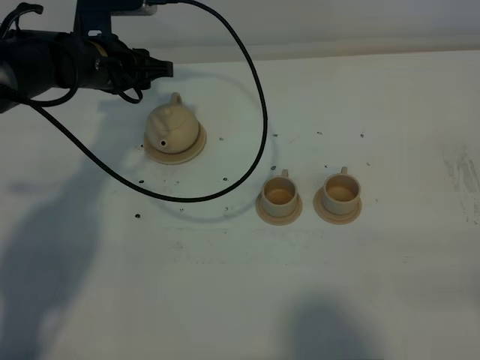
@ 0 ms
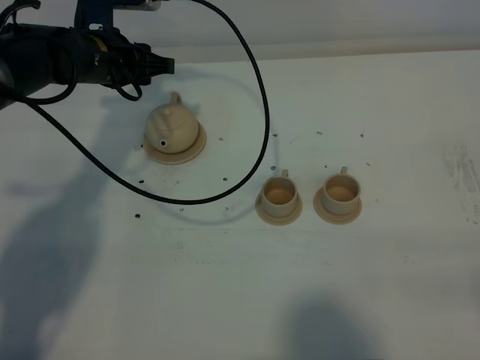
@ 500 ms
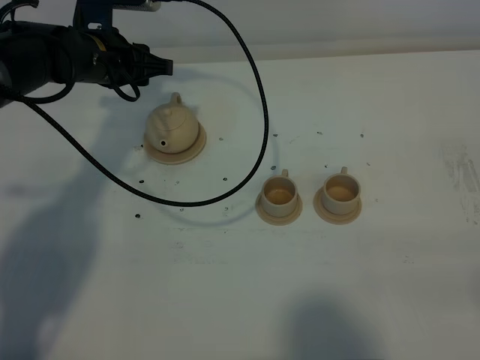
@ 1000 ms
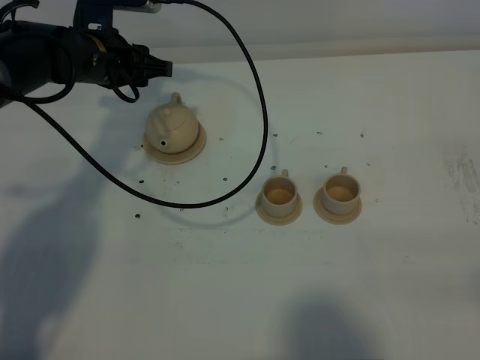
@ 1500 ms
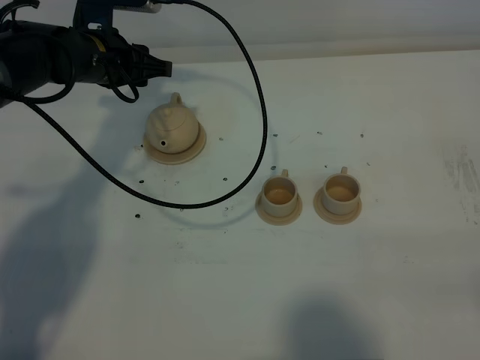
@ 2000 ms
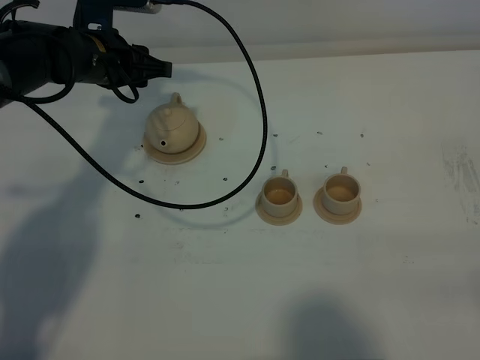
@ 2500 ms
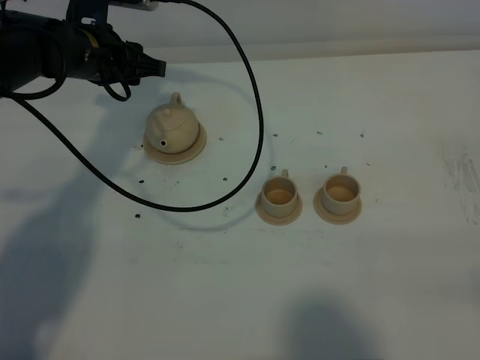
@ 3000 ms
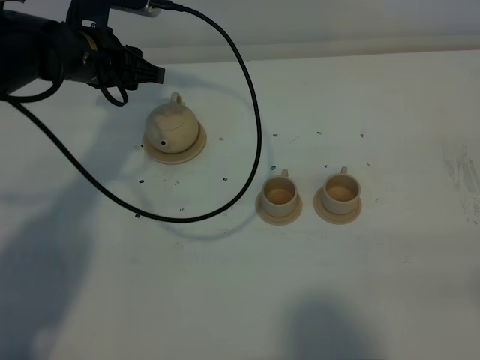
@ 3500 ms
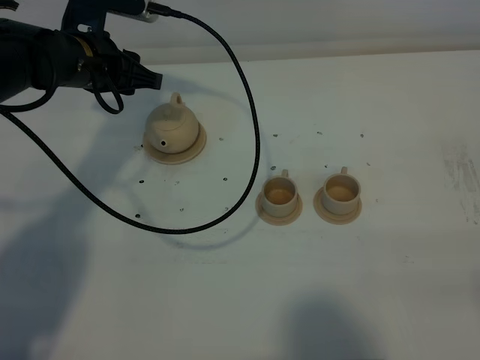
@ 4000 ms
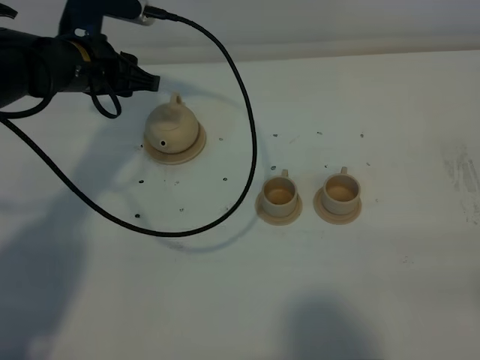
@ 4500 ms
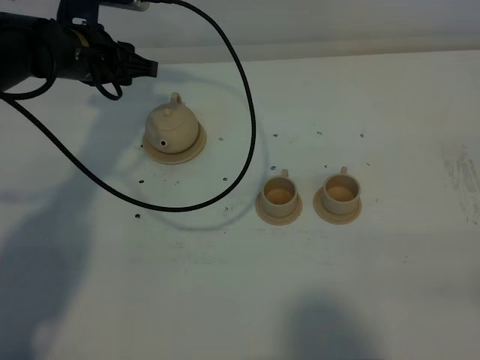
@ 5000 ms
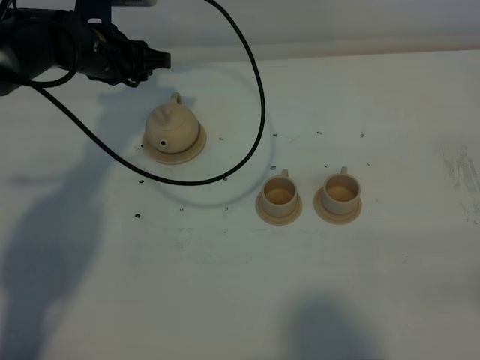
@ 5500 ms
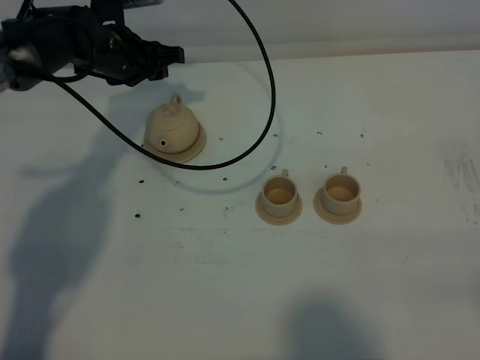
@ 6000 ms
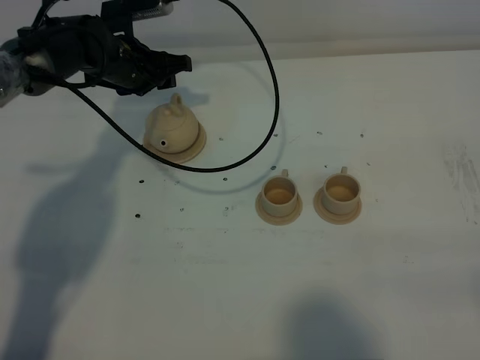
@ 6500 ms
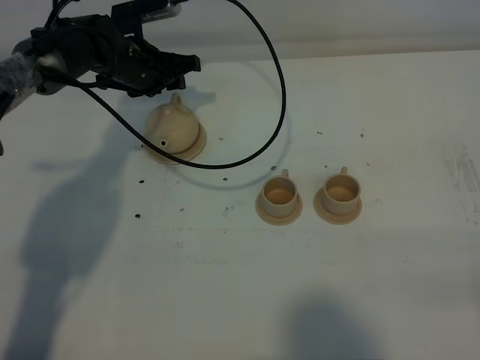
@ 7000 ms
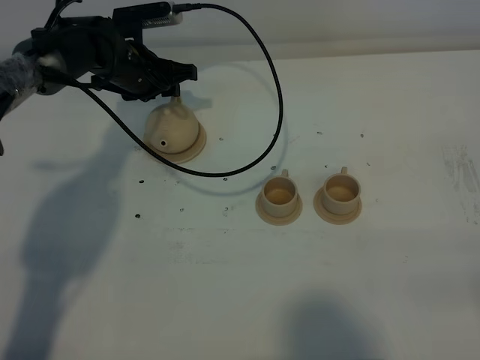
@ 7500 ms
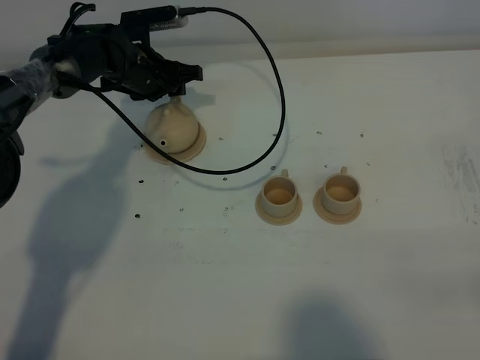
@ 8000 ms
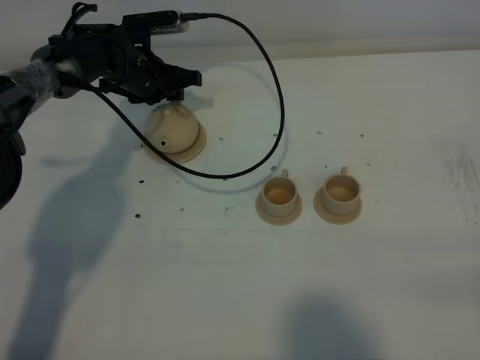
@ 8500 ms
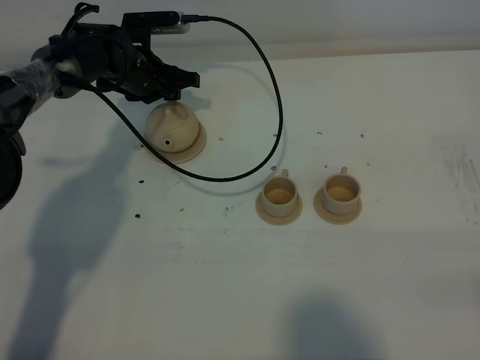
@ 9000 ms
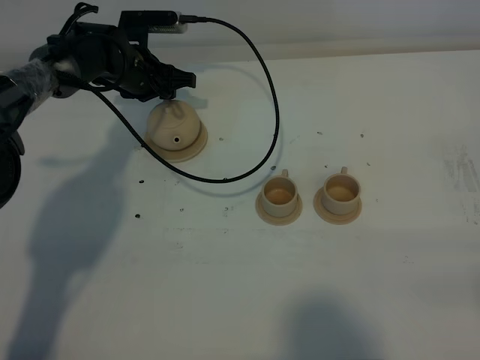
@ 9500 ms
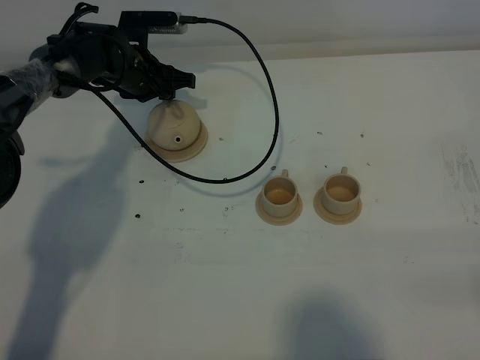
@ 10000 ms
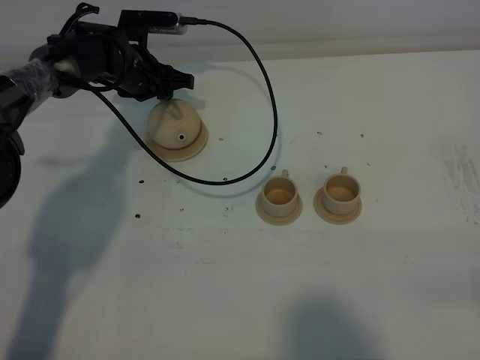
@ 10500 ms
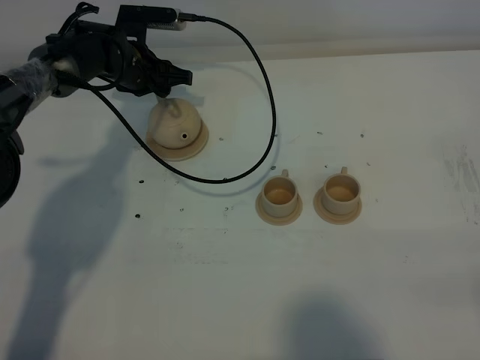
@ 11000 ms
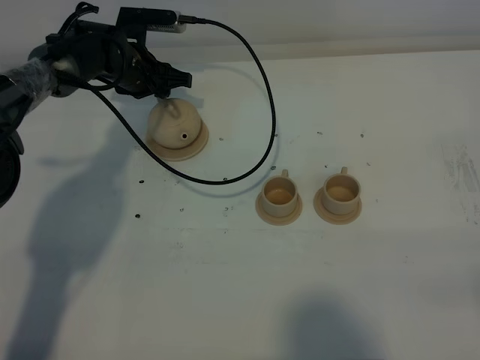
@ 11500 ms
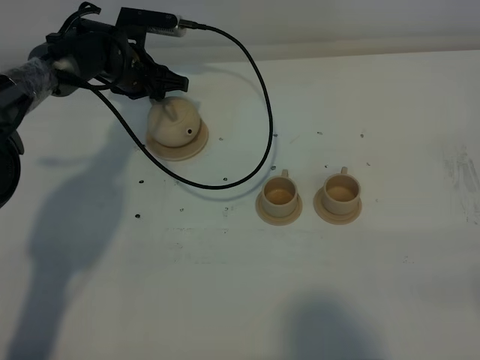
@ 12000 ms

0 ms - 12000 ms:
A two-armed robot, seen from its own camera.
Task of the whole recording: grasp the brown teapot and pour the tea into the two brown teacups one by one, put the brown teapot back in its original place.
0 ms - 4000 ms: The grippers move only a little.
4000 ms - 6000 ms: The left gripper is displaced forward by about 5 cm.
6000 ms - 8000 ms: The left gripper ends up some 5 cm from where it was.
8000 ms - 12000 ms: The grippers make only small movements.

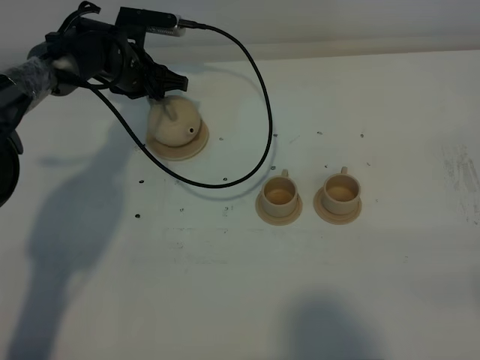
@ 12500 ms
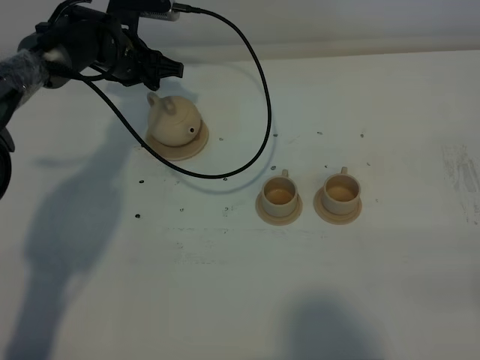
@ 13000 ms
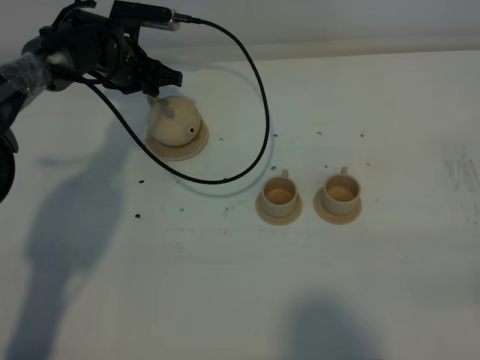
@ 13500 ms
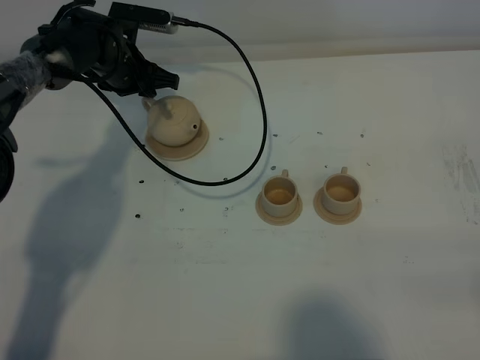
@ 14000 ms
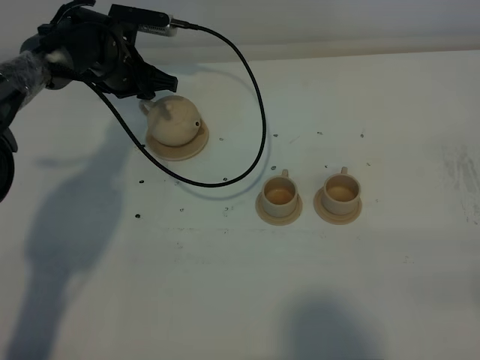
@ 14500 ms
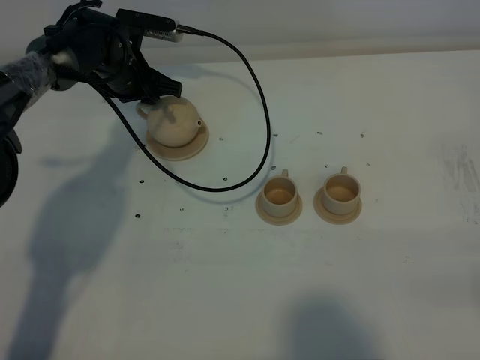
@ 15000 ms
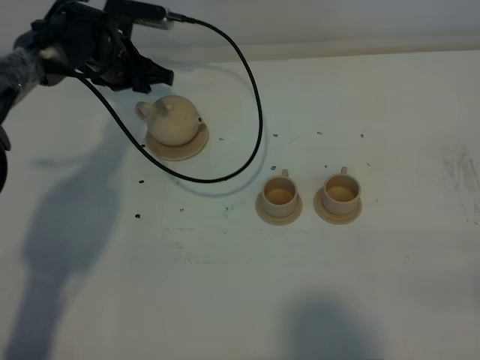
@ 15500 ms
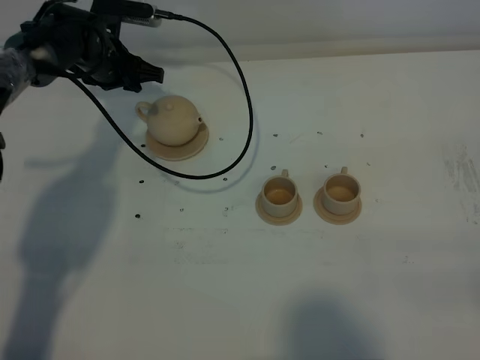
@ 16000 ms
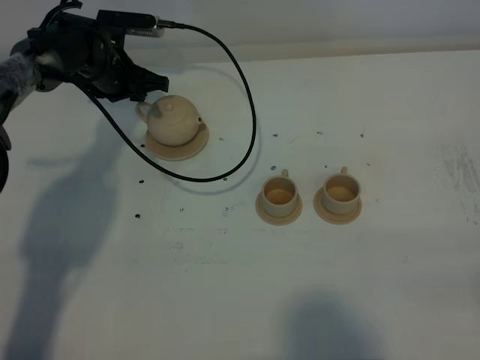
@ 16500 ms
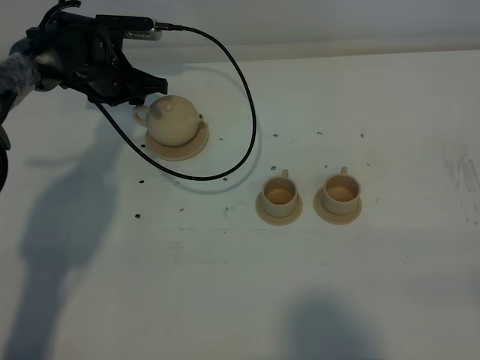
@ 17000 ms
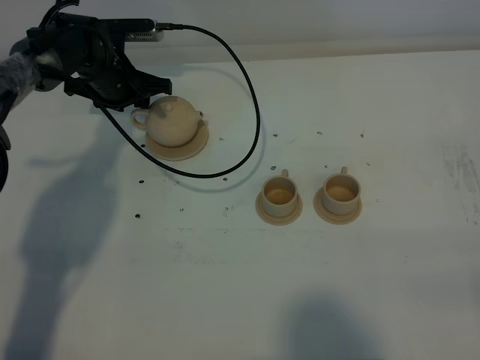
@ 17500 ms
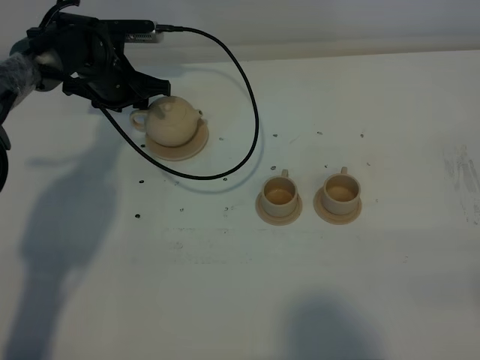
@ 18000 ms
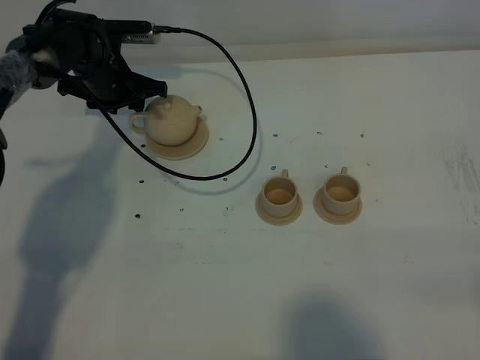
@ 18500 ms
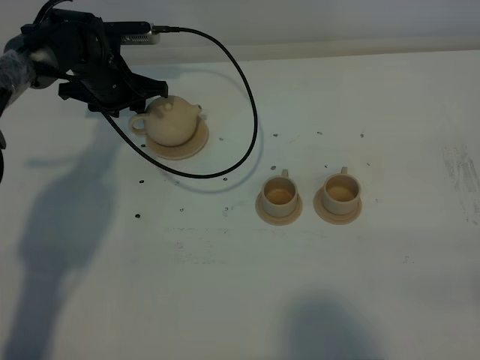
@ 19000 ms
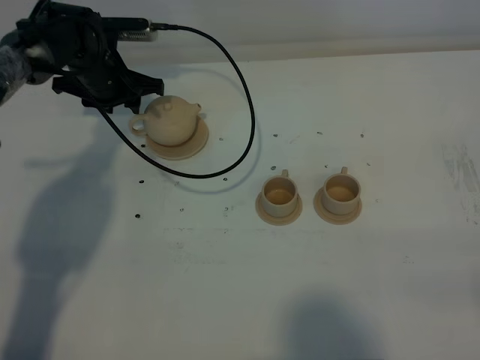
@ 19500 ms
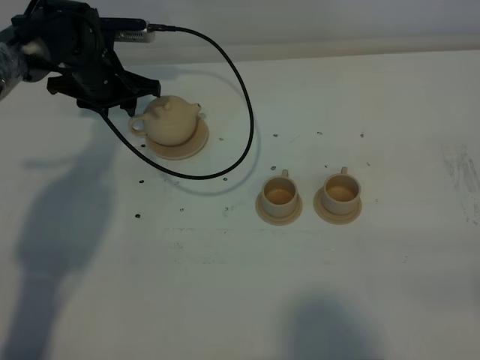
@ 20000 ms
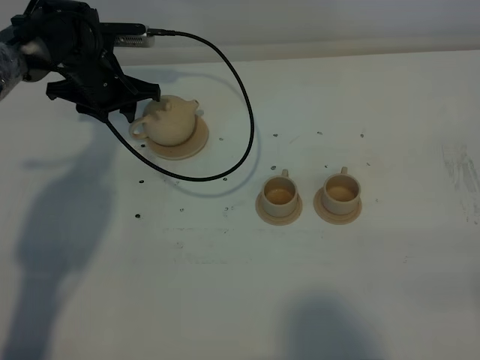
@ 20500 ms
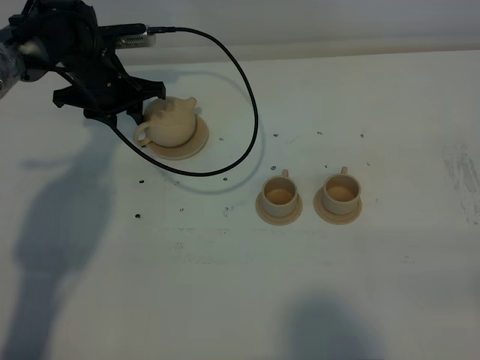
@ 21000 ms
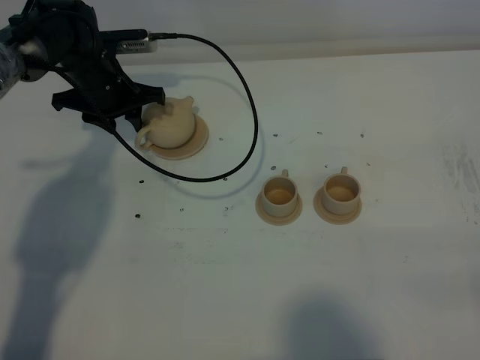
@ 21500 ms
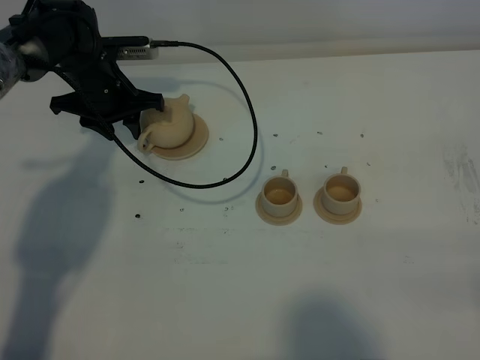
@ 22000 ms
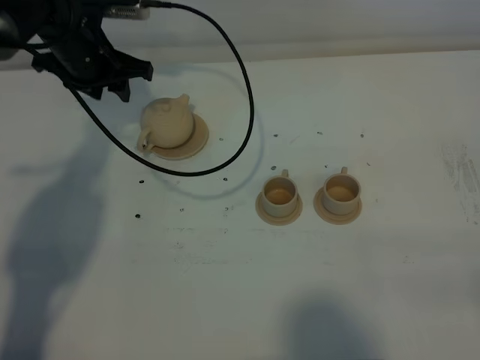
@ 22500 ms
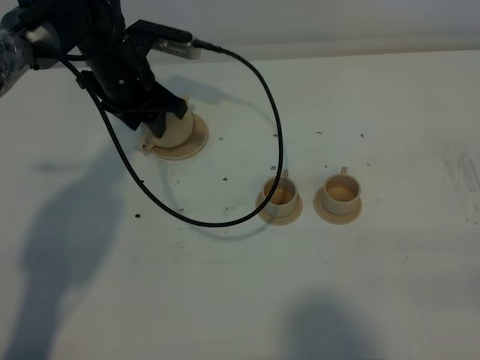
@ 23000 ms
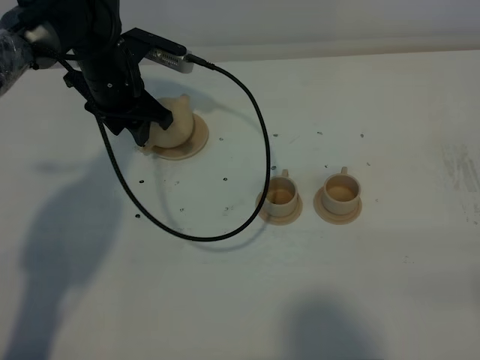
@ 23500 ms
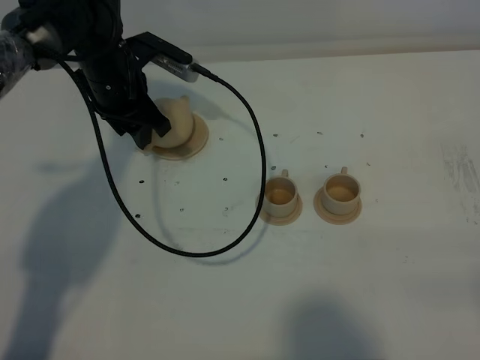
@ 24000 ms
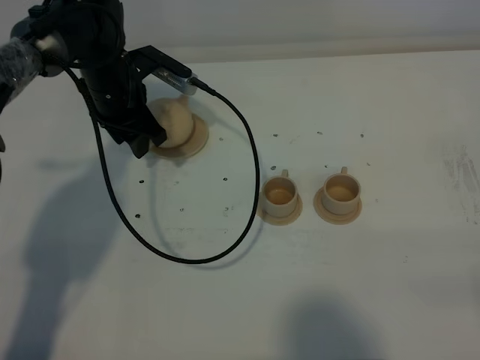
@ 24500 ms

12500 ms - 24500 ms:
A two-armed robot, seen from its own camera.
Task of the whole recording: grasp the brown teapot and pour the tea into the two brown teacups one by one, put the brown teapot back in its original place.
12500 ms - 18500 ms: The grippers stay close to where they were, moving slightly.
18500 ms - 20500 ms: The grippers stay close to where they were, moving slightly.
20500 ms - 22500 ms: The left gripper goes approximately 5 cm upward.
22500 ms - 24500 ms: The left gripper moves about 5 cm.

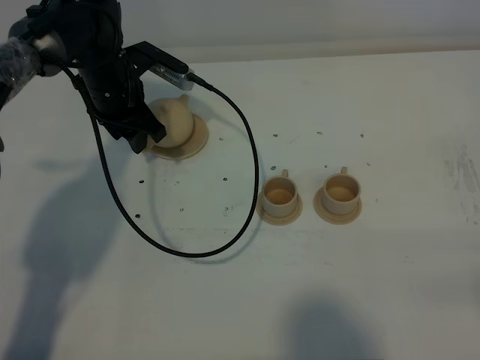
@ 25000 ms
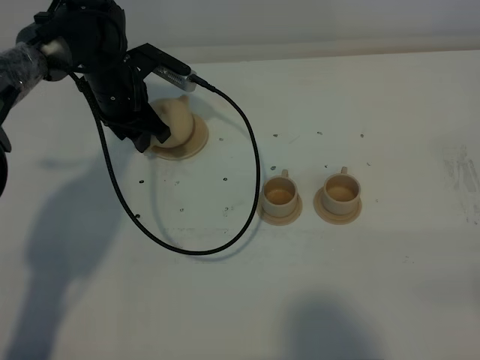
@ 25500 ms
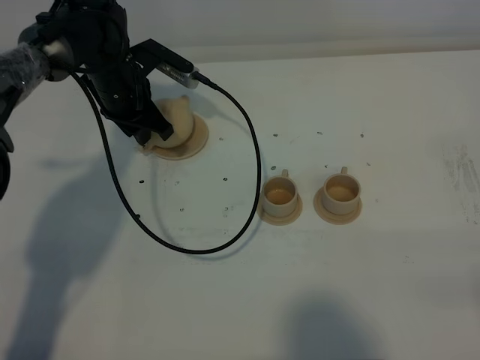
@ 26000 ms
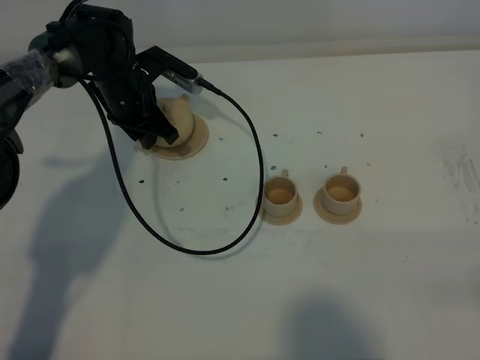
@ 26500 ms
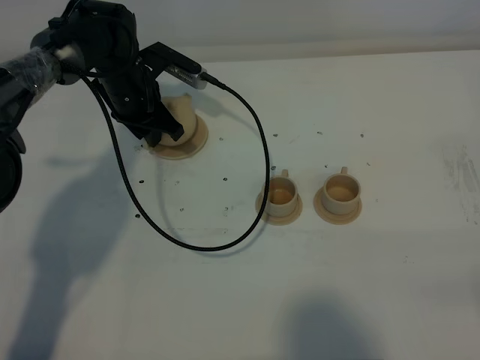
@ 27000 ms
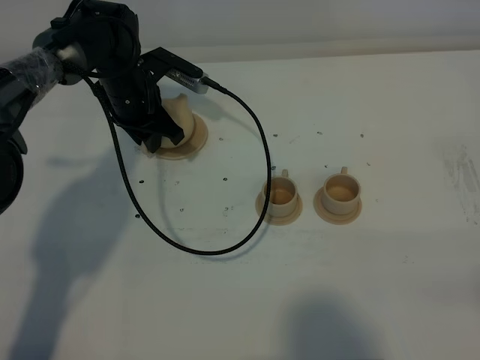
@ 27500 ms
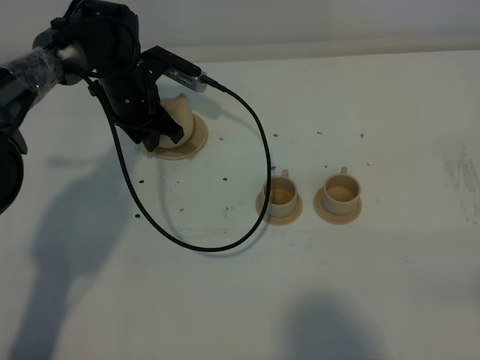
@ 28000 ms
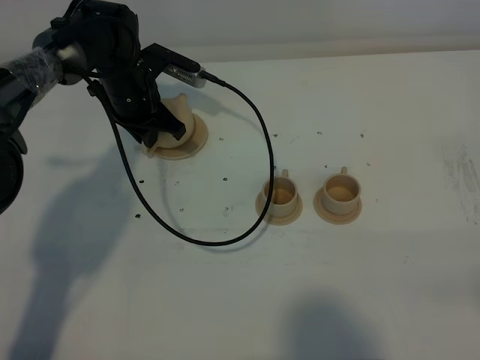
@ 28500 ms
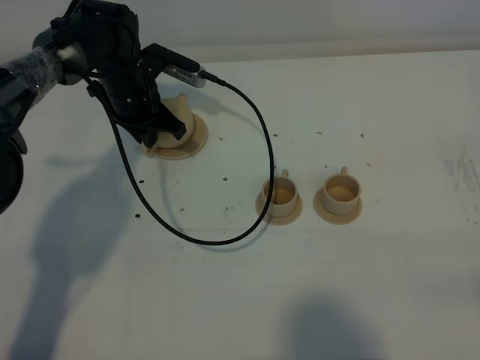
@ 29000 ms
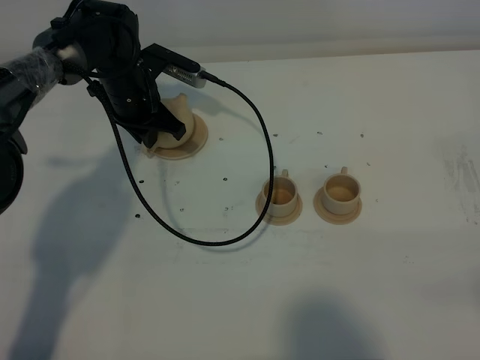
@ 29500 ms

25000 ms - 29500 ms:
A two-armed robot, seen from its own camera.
Task of the whole recording: grasp the brown teapot and pour the tea into the two brown teacups one by one, put the brown teapot back in its original place.
25000 ms - 29500 ms: The grippers stay close to where they were, moving slightly.
